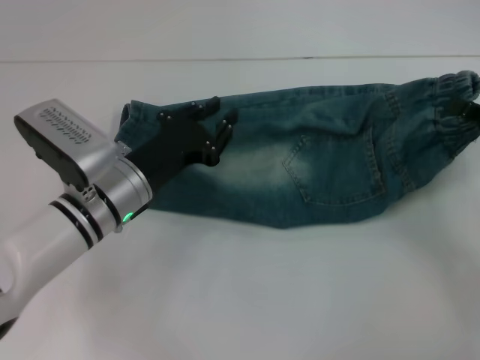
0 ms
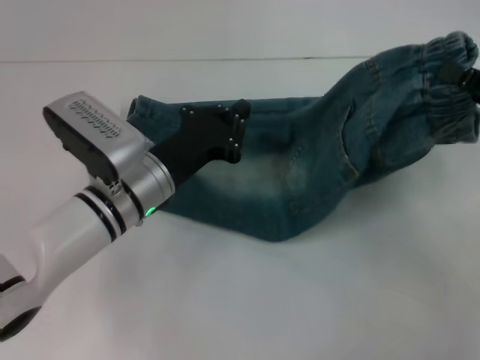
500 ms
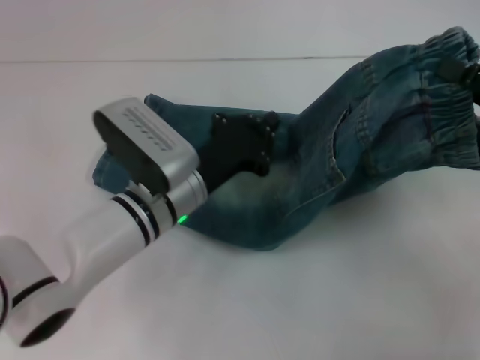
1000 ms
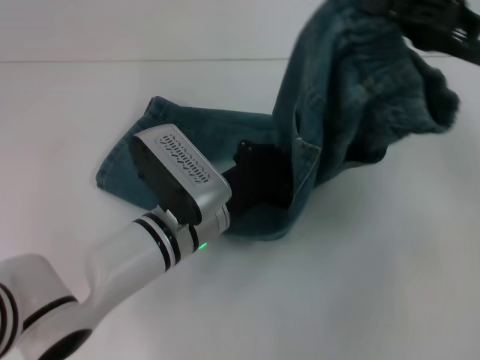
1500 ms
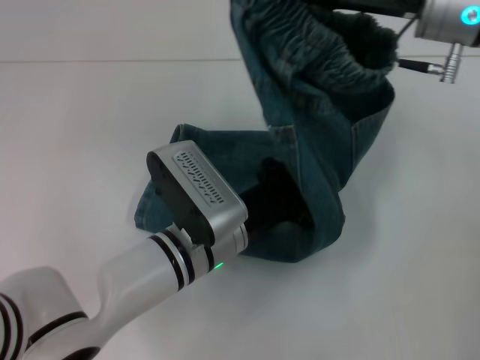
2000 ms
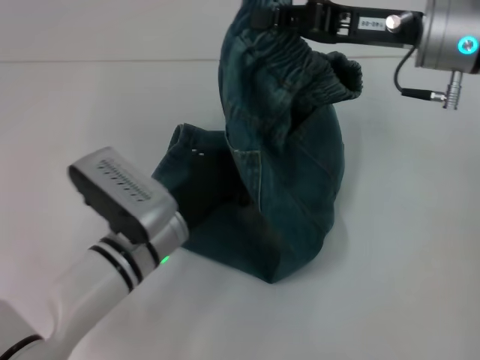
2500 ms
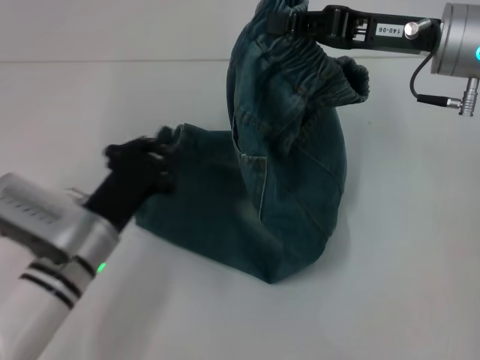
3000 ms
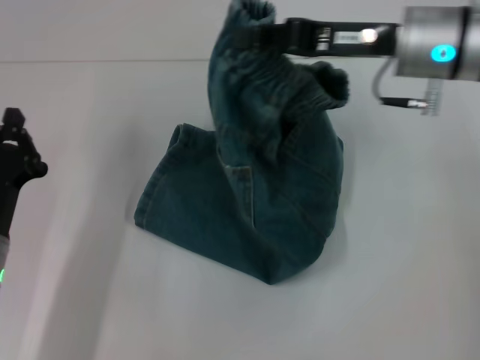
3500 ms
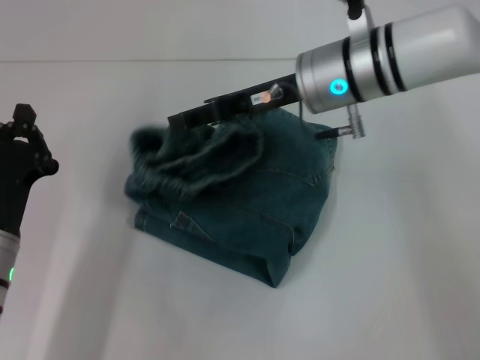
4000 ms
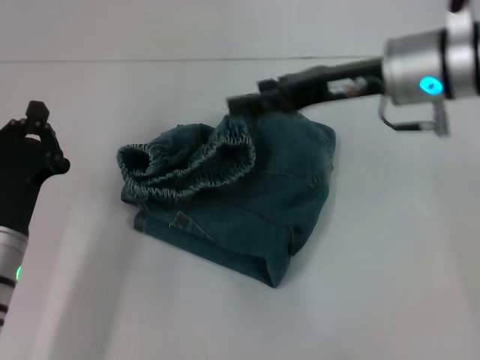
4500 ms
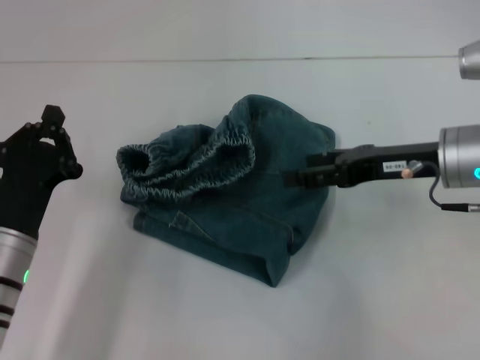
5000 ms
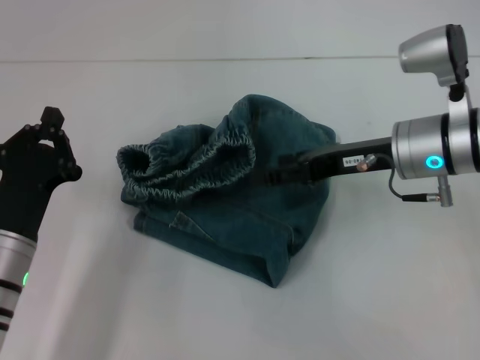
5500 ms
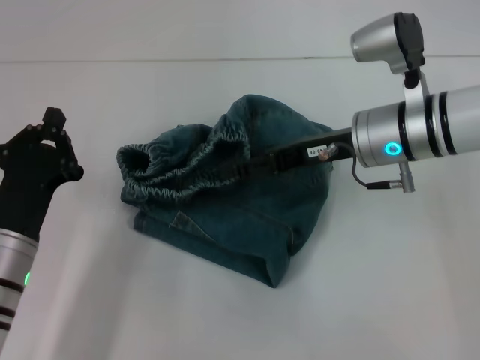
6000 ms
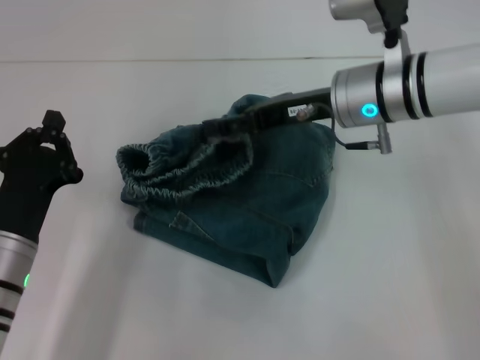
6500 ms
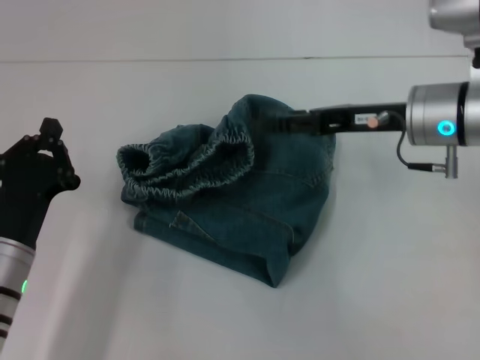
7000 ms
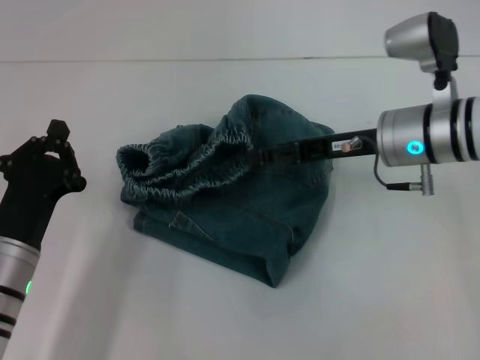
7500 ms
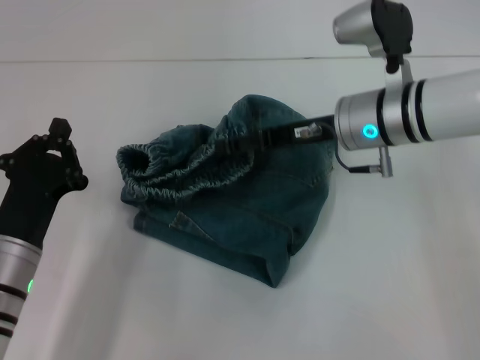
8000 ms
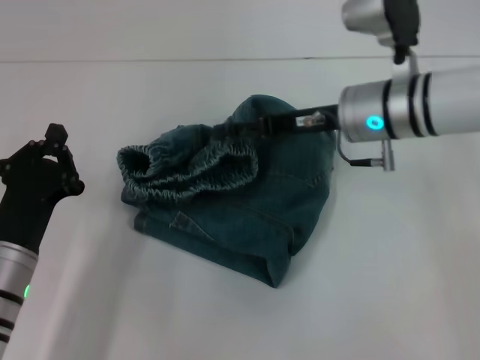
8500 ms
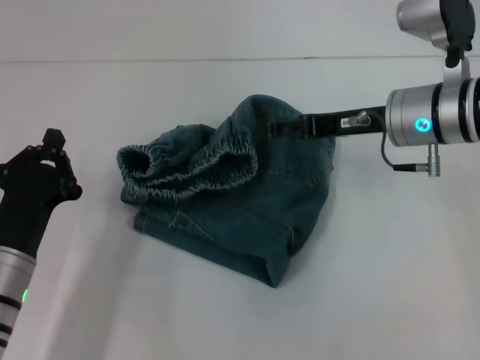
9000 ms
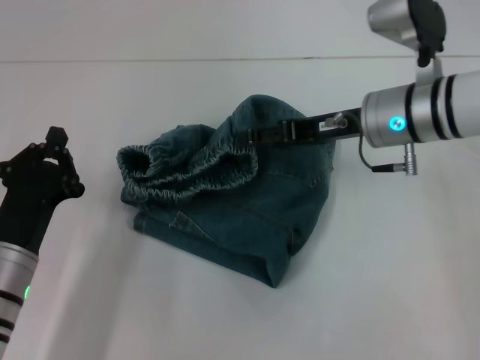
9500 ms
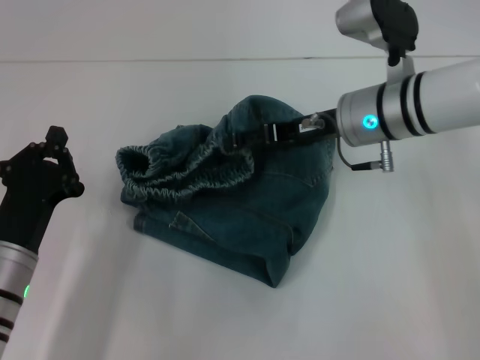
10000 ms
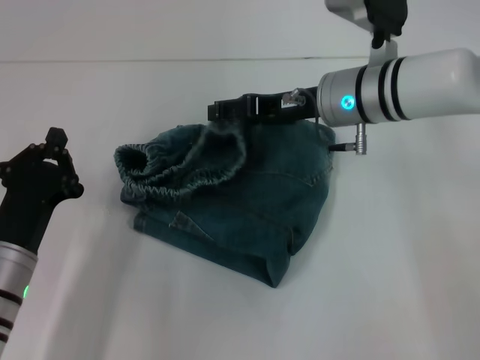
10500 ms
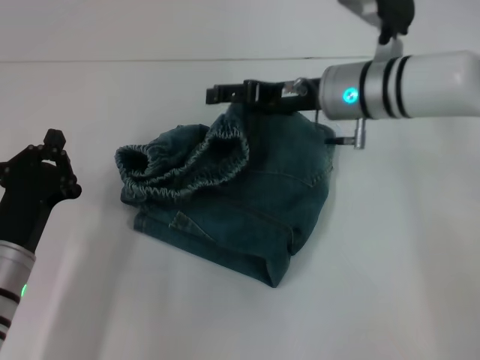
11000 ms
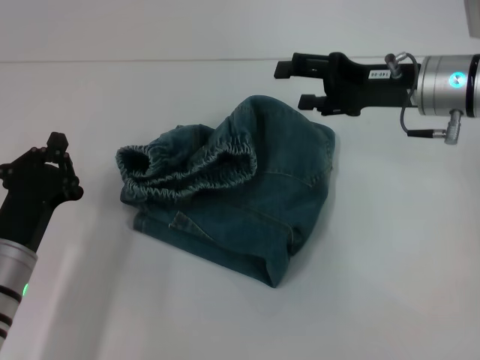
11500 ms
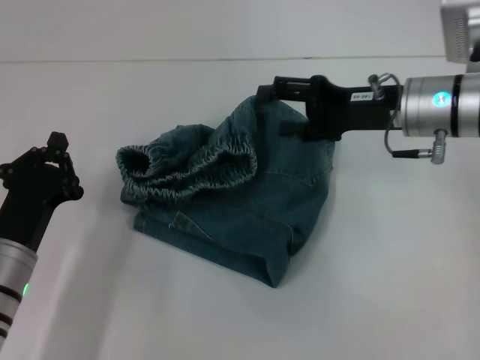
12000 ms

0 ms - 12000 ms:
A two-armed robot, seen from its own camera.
Step, 0 ms - 2000 ms: Press the middle of the pants with your left hand.
Step, 2500 ms - 4000 ms: Fold to the left with your right hand.
0 ms - 2000 ms: The left gripper goes about 10 cm to the right, and closes its fingers, while the right gripper travels to the left, upward and forward by some 25 cm.
2000 ms - 4000 ms: The right gripper goes about 10 cm to the left; the left gripper is displaced to the left by roughly 20 cm.
4000 ms - 6000 ms: The right gripper goes roughly 10 cm to the right and downward, and opens its fingers.
6000 ms - 10000 ms: The grippers make only small movements.
10000 ms - 12000 ms: The right gripper travels to the right by approximately 5 cm.

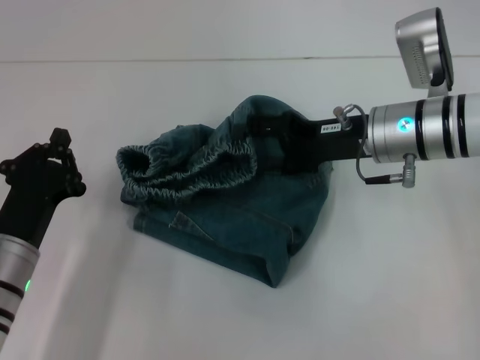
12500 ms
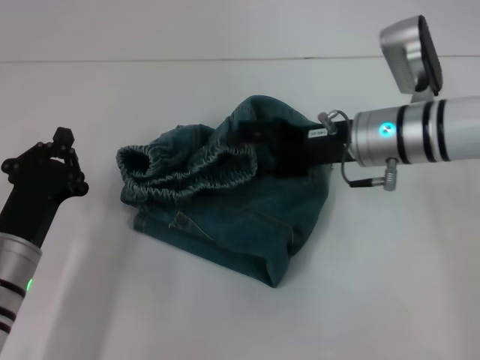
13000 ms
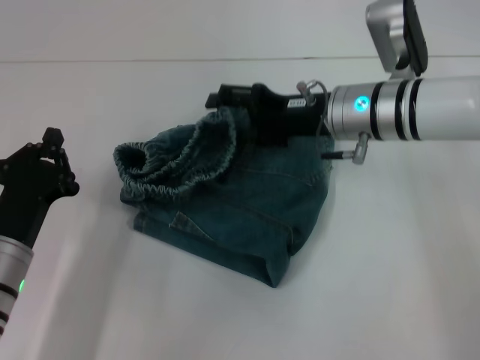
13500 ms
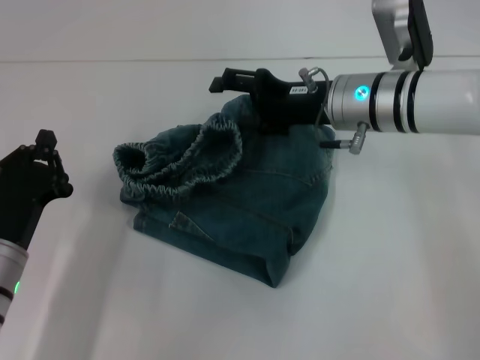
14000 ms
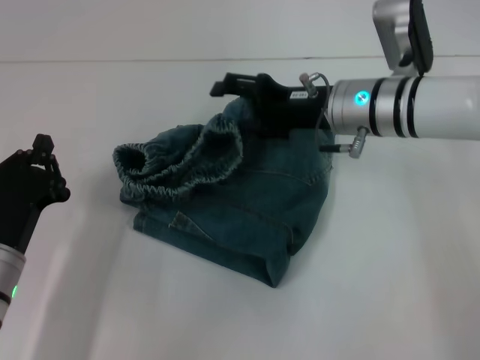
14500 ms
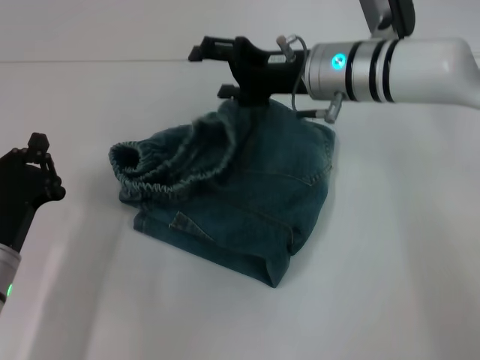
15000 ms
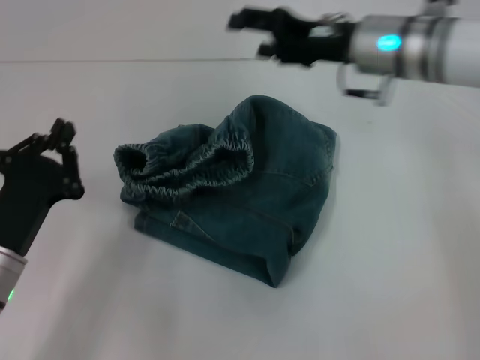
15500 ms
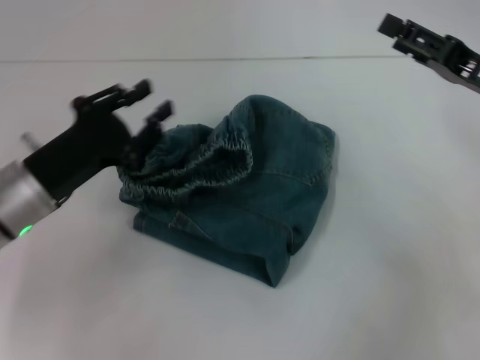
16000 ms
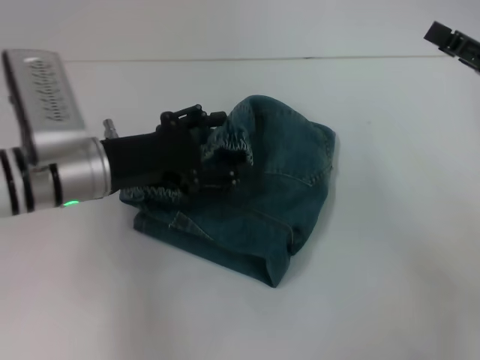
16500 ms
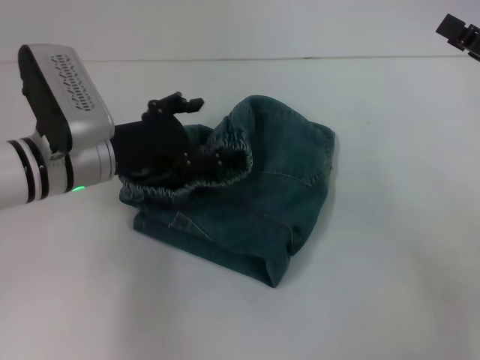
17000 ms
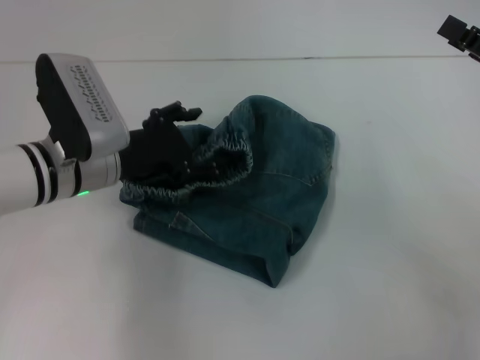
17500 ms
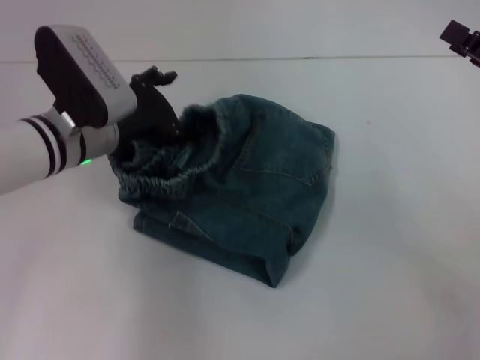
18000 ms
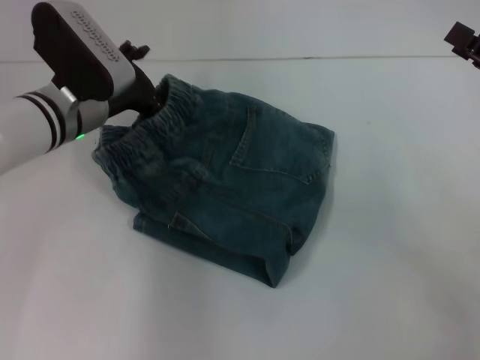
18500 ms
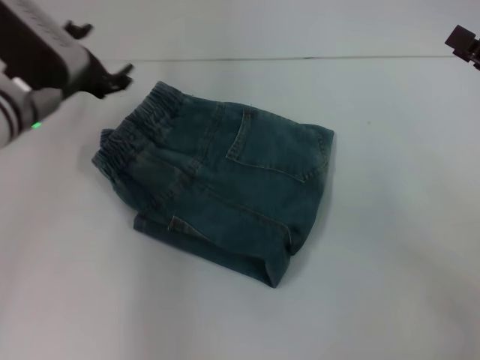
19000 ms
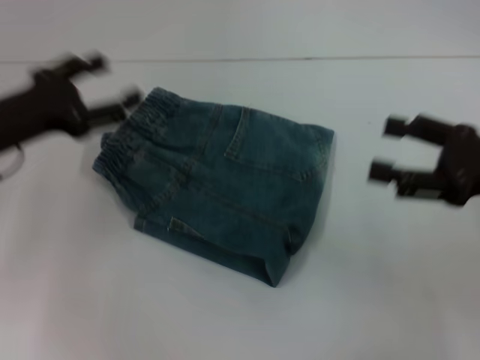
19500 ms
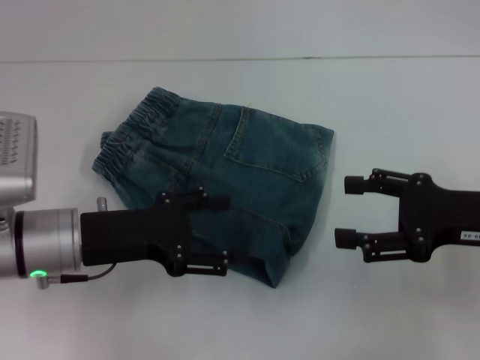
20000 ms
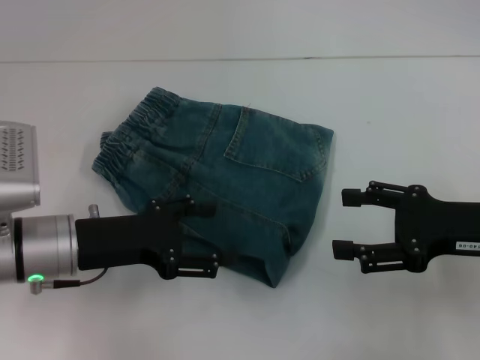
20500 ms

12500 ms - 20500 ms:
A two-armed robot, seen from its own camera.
Step, 12500 ms - 19000 ms: Adjust the pants with your left hand.
12500 ms - 14500 ms: There are only small adjustments of the grippers.
14500 ms - 16500 ms: The right gripper is displaced to the right and backward by roughly 20 cm, while the left gripper shifts some 15 cm upward, forward and to the right, and opens up.
16500 ms - 18500 ms: The left gripper goes some 5 cm forward.
18500 ms - 20500 ms: The left gripper shifts some 10 cm backward. Meanwhile the right gripper goes approximately 5 cm to the left.

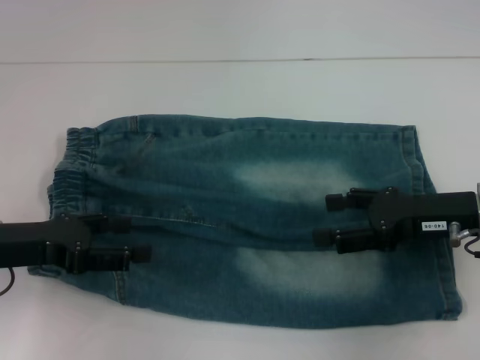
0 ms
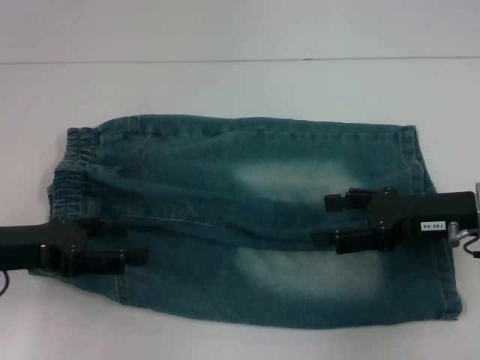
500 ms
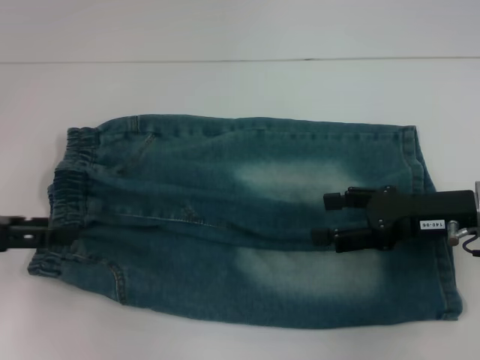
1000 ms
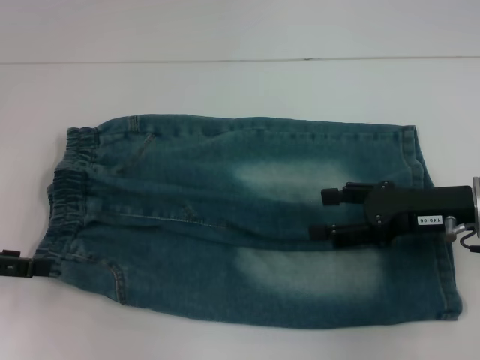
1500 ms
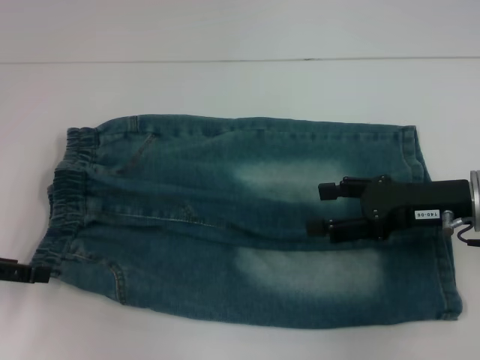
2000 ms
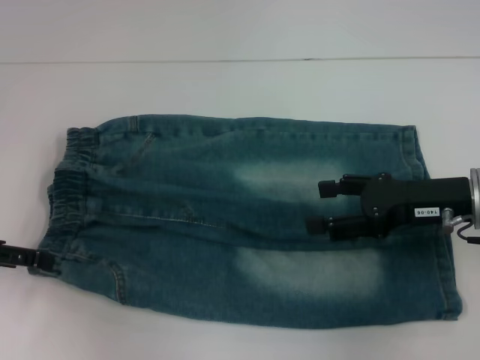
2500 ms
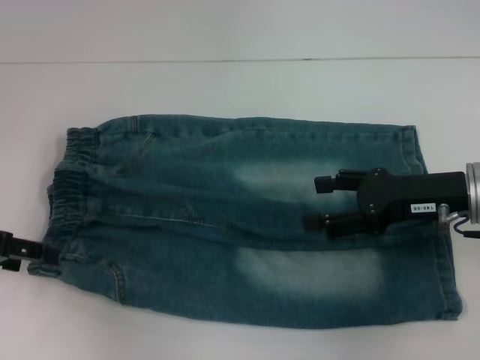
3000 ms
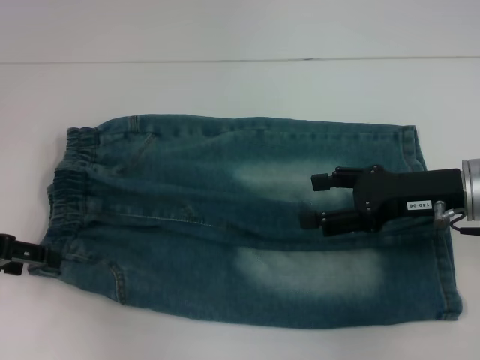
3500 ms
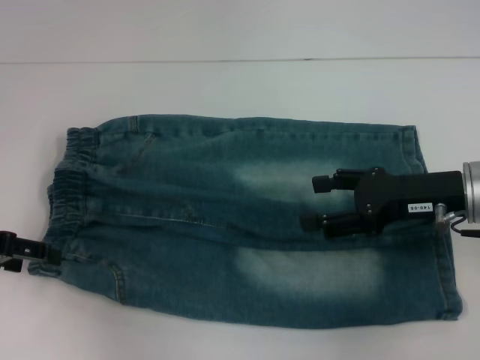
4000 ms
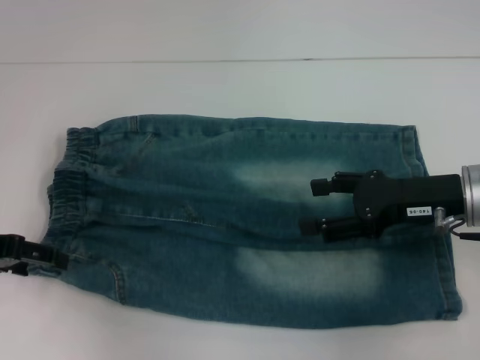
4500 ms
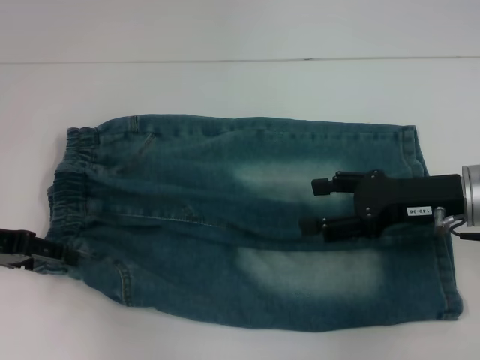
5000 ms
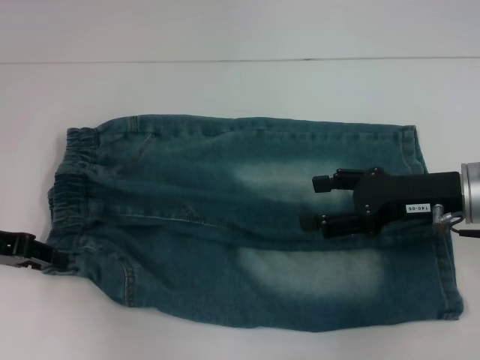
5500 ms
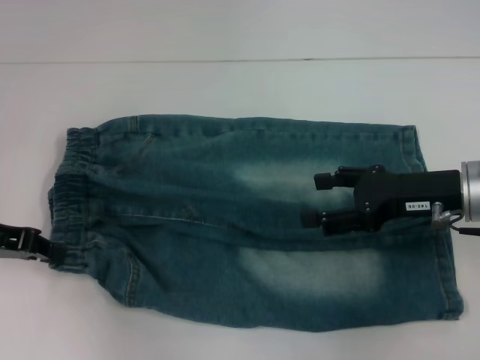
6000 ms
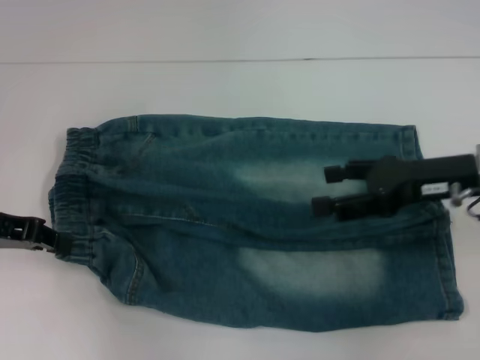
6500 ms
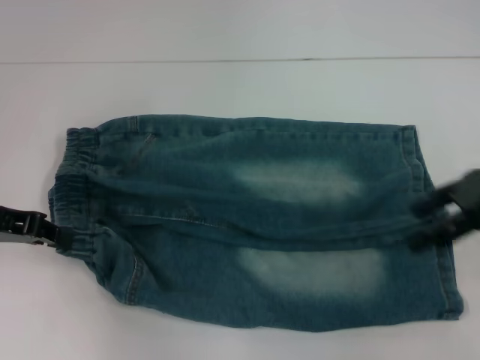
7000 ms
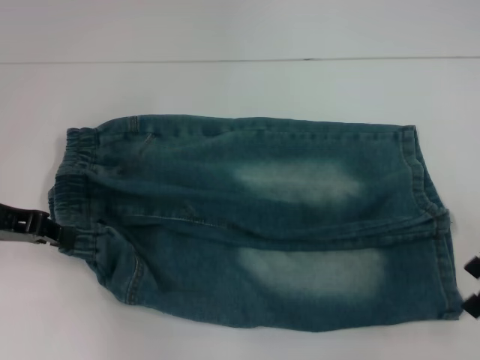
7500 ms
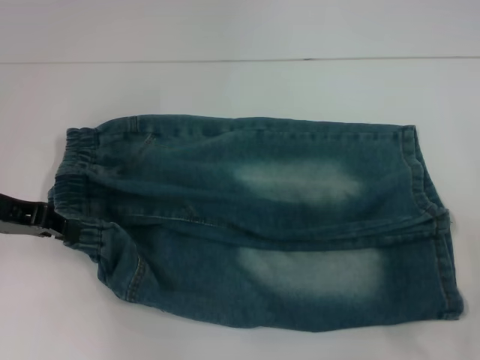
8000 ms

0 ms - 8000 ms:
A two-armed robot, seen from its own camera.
Step, 0 ms - 5500 ms: Hold the lower left waistband with your left hand.
0 ms - 2000 ms: The left gripper moves to the left, roughly 5 cm.
2000 ms - 4000 ms: The grippers stay close to where they were, moving slightly.
4000 ms - 6000 ms: The left gripper closes its fingers.
6000 ms - 8000 ms: The right gripper heads to the right and upward, covering about 10 cm.
